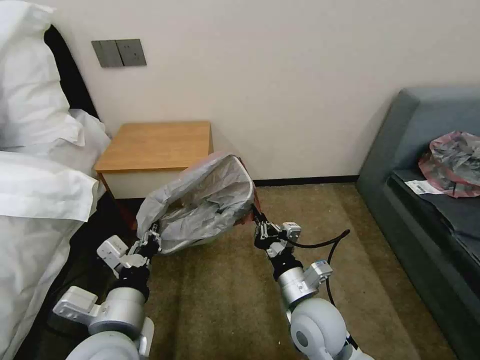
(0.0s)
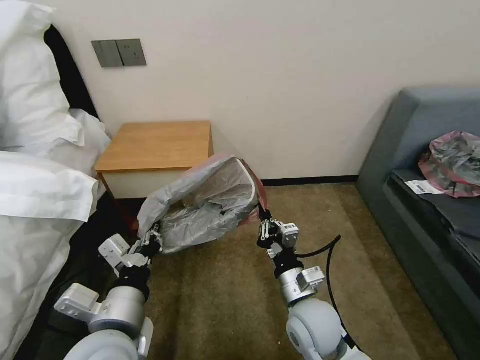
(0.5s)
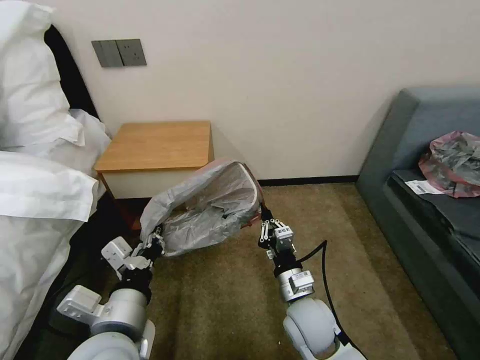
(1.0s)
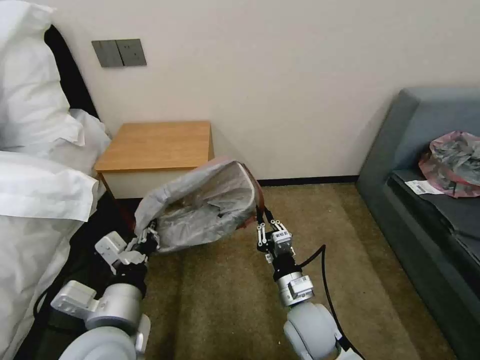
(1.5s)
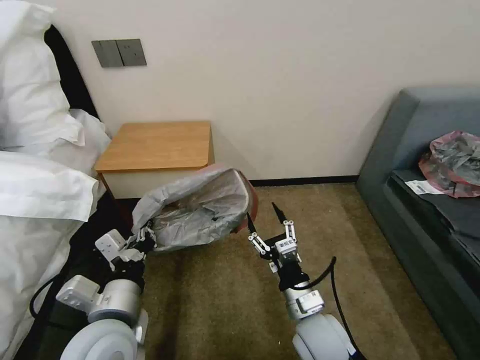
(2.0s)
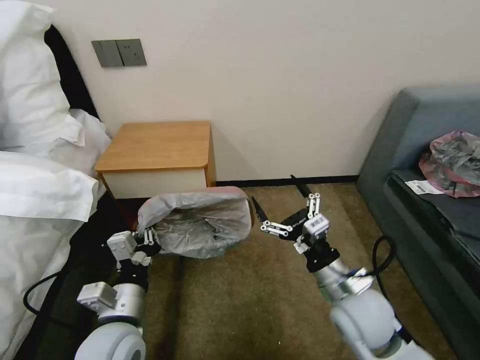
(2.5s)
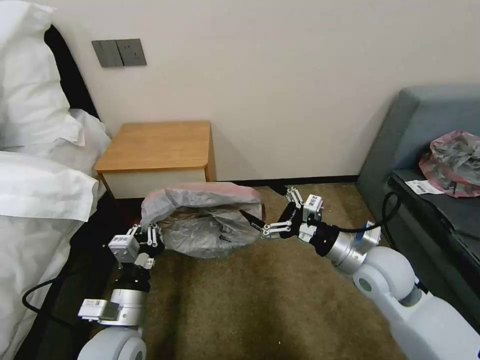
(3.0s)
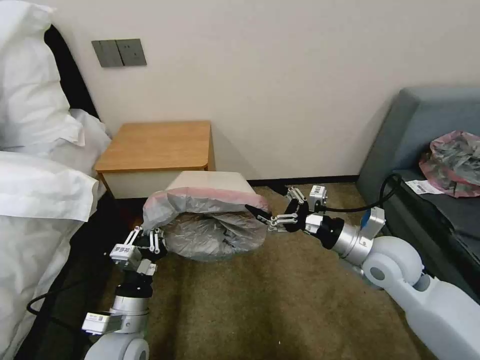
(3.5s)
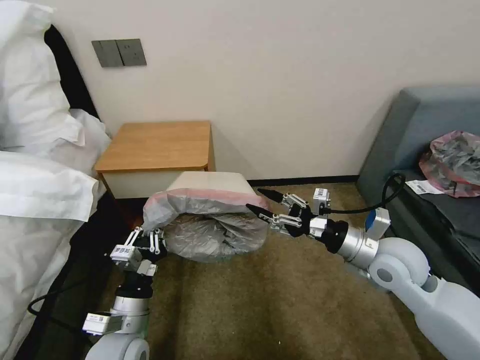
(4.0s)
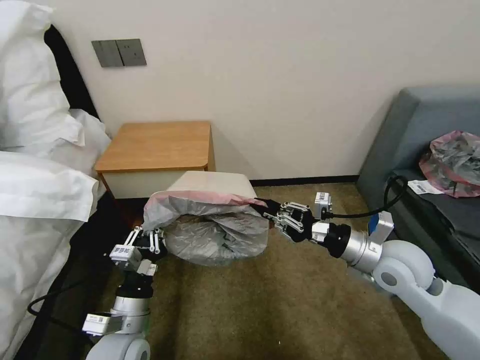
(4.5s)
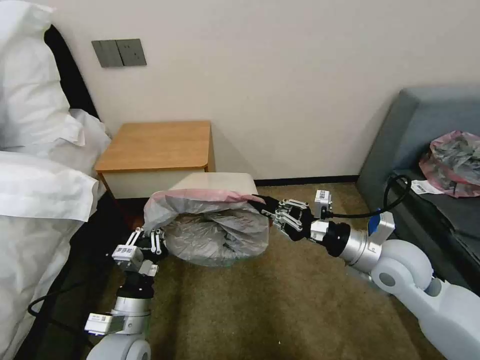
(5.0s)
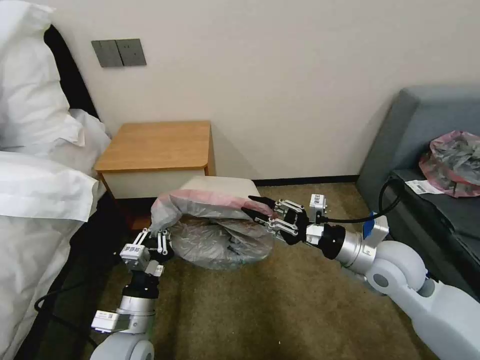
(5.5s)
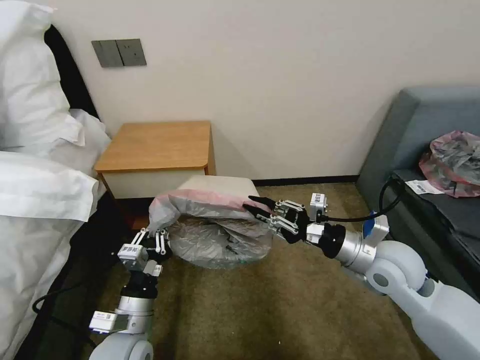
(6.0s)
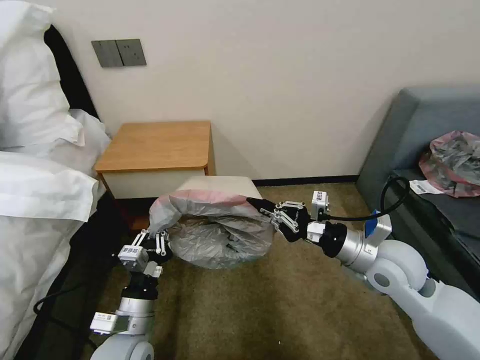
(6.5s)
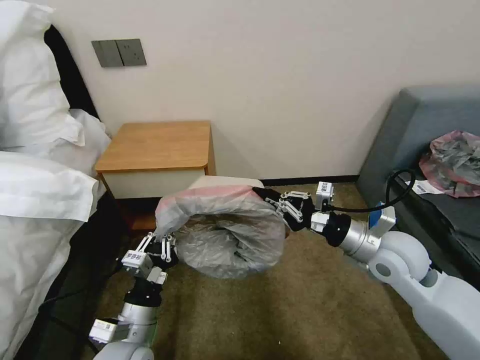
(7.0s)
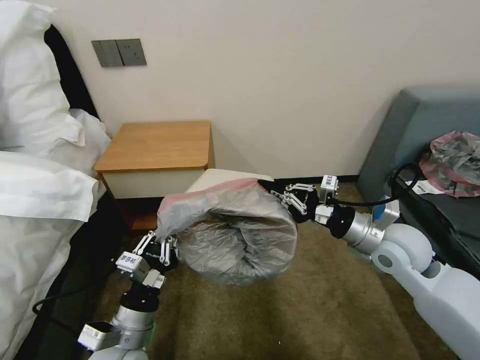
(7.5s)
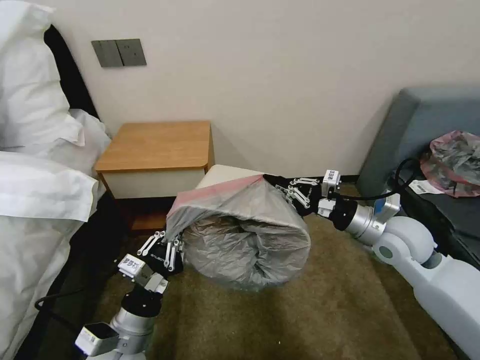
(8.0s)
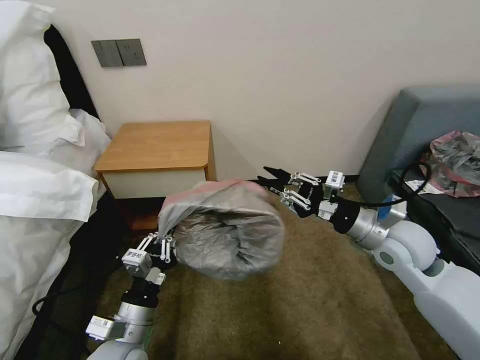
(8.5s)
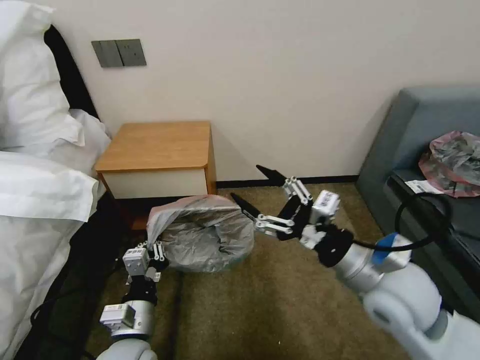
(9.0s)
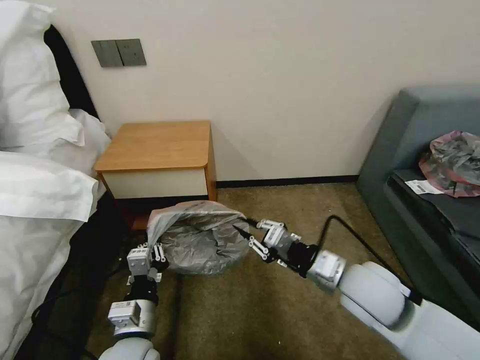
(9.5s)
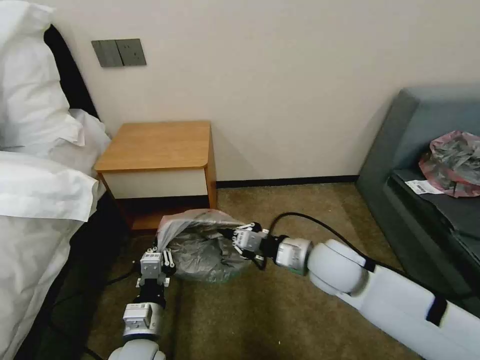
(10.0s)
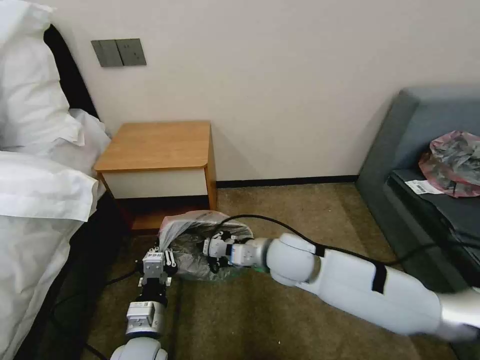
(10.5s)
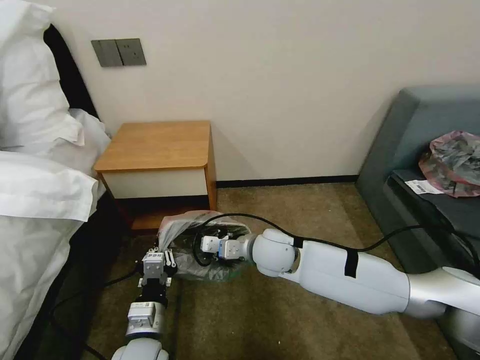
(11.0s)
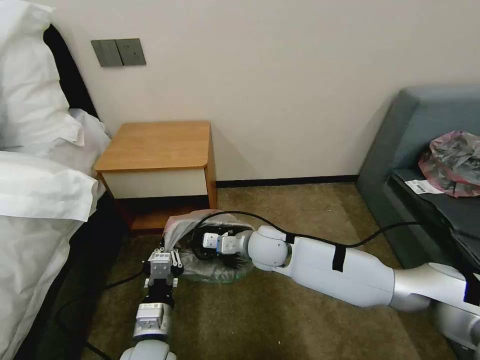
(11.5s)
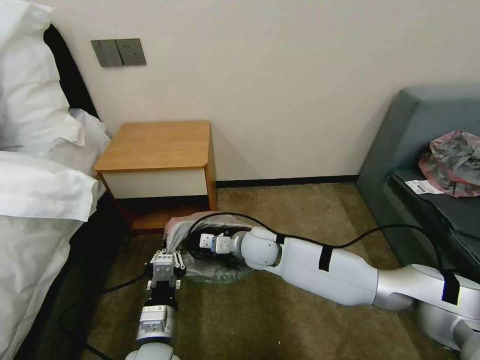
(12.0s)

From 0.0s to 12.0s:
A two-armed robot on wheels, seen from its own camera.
Task of the whole recording: Pick up the garbage bag from the table and place it over the trash can.
From 0.0s to 2.0s: The right gripper opens its fingers.
From 2.0s to 4.0s: The left gripper shifts roughly 10 cm downward, while the right gripper moves to the right, upward and forward, roughly 20 cm.
From 4.0s to 6.0s: The right gripper closes.
From 6.0s to 8.0s: The right gripper shifts by about 5 cm.
From 8.0s to 10.0s: The right gripper moves to the left, about 15 cm, and opens, then closes again.
From 10.0s to 12.0s: The right gripper shifts approximately 15 cm to the left, forward and downward.

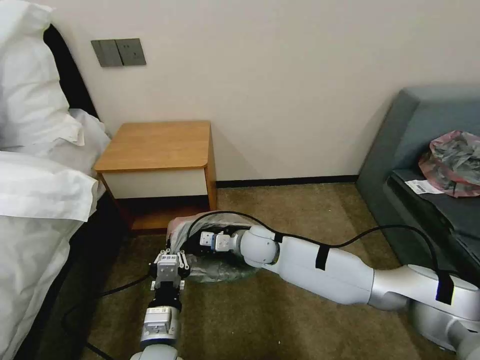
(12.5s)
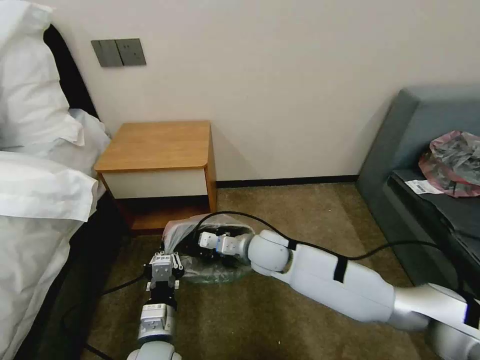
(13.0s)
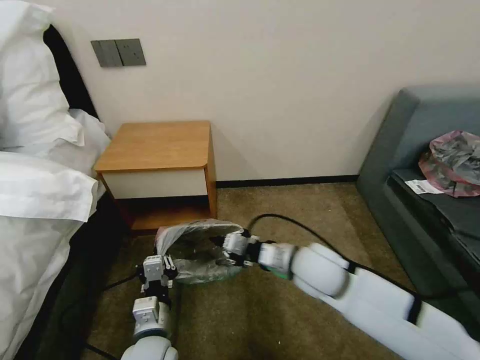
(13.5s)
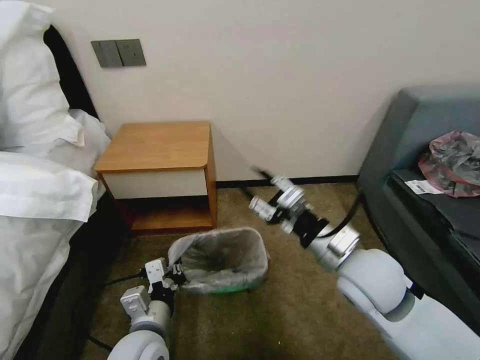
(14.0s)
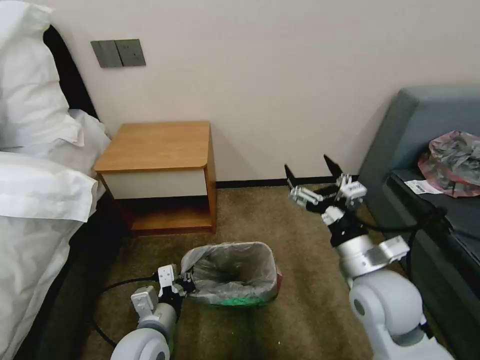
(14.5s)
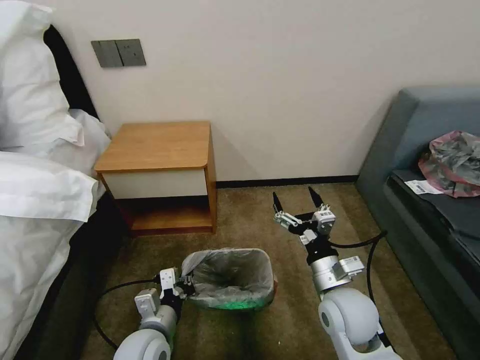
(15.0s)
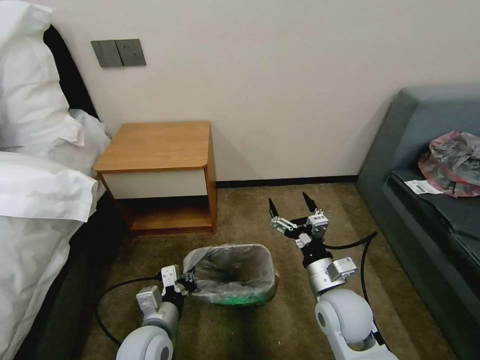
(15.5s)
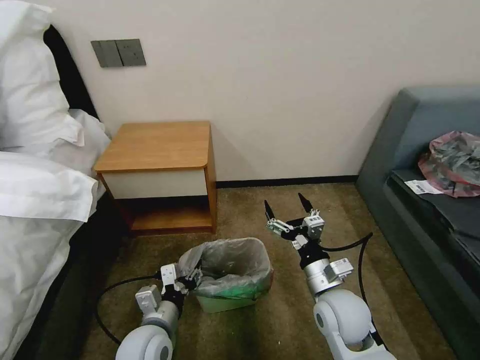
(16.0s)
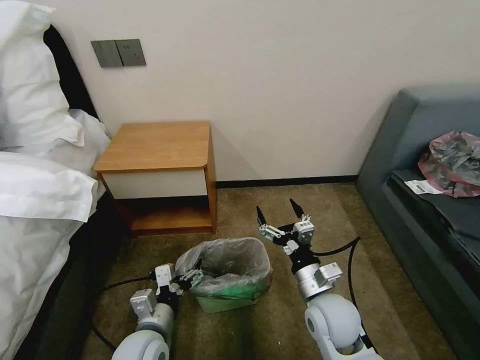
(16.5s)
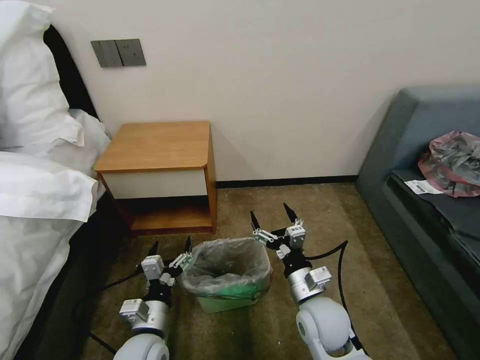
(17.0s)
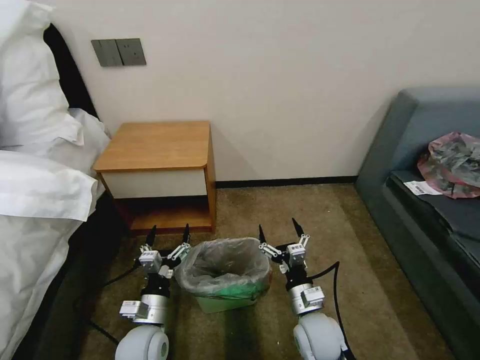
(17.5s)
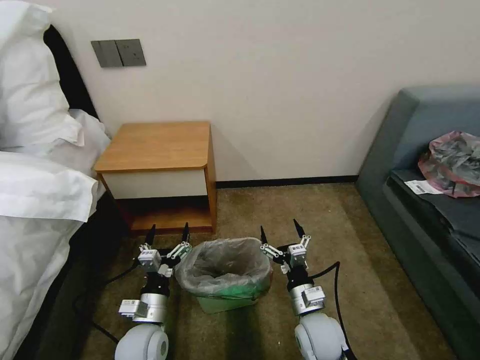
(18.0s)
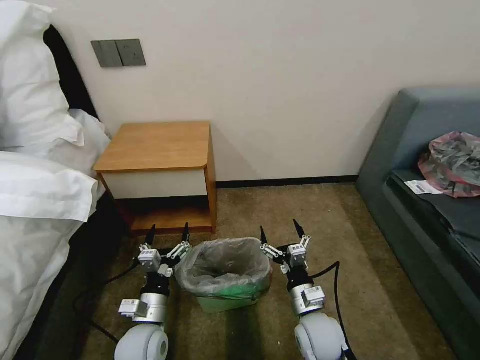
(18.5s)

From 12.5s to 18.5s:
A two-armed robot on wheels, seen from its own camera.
Task of the whole recording: Pick up the garbage bag from the table and place it over the trash can.
From 12.5s to 14.5s: The right gripper heads to the right, backward and upward, covering some 25 cm, and opens its fingers.
From 14.5s to 16.5s: The right gripper goes approximately 10 cm downward and to the left. The left gripper opens.
From 16.5s to 18.5s: The right gripper goes approximately 10 cm downward, while the left gripper ends up some 5 cm from where it was.

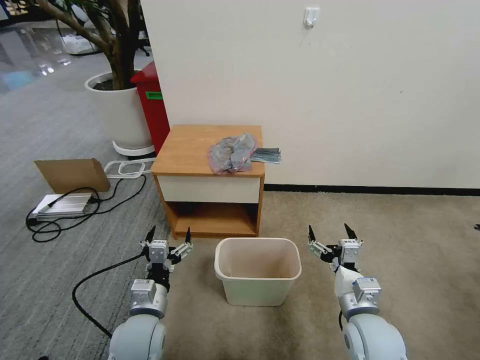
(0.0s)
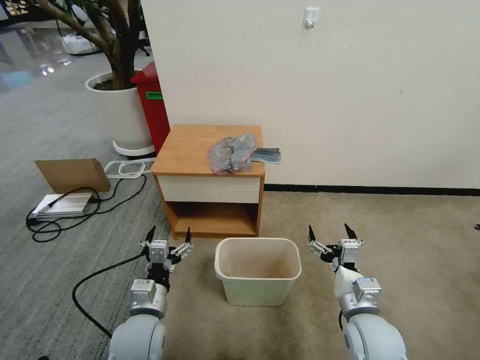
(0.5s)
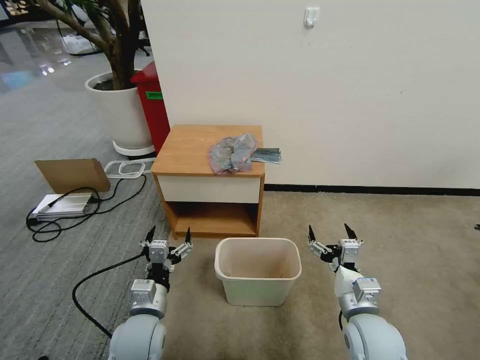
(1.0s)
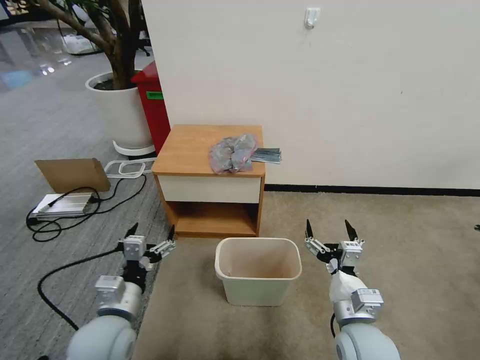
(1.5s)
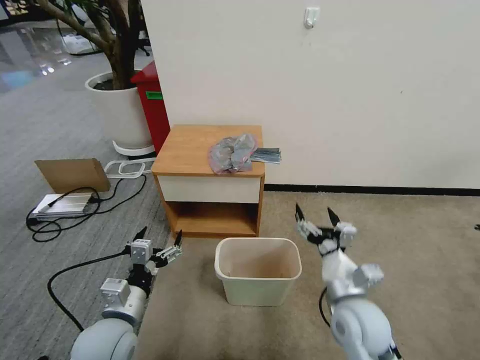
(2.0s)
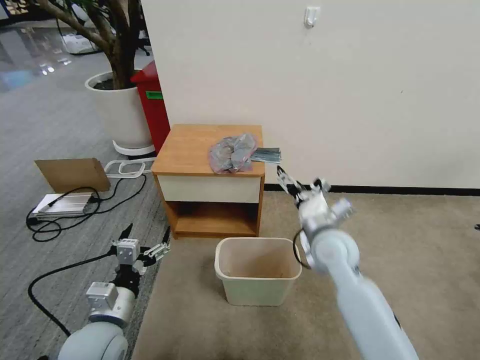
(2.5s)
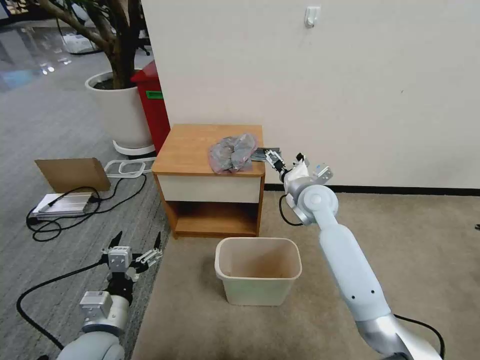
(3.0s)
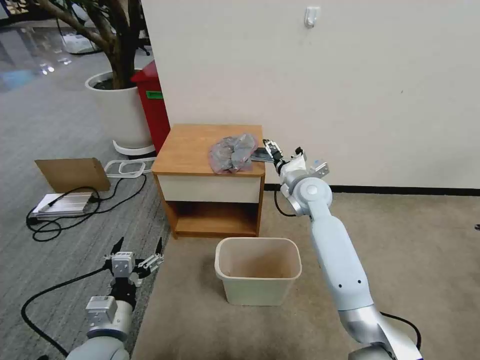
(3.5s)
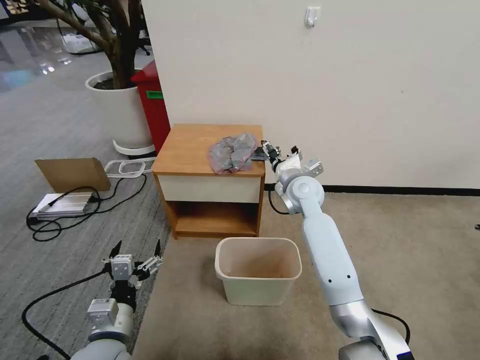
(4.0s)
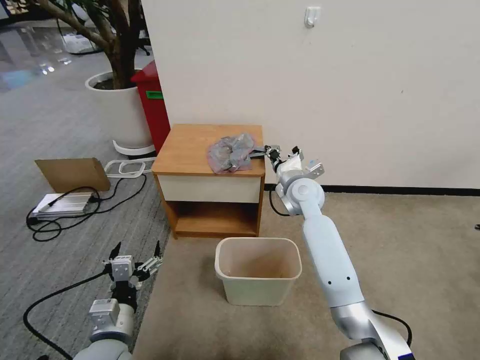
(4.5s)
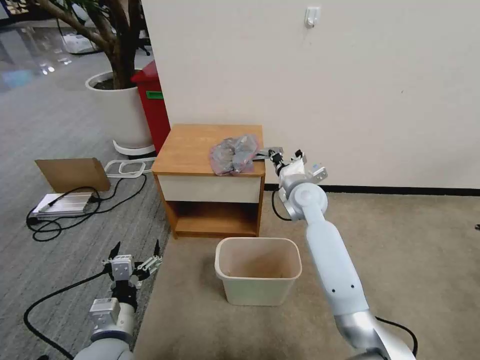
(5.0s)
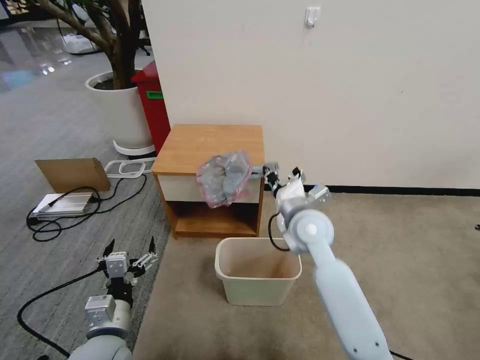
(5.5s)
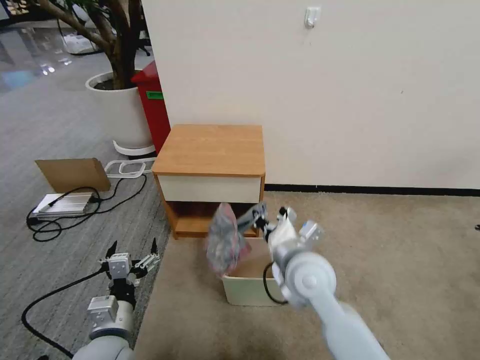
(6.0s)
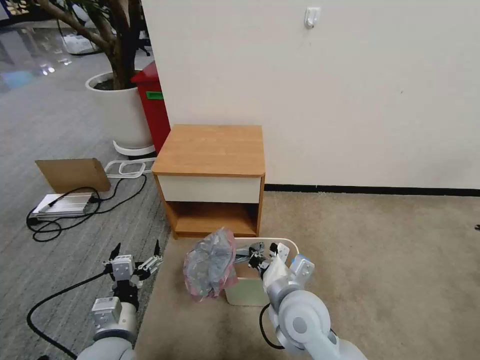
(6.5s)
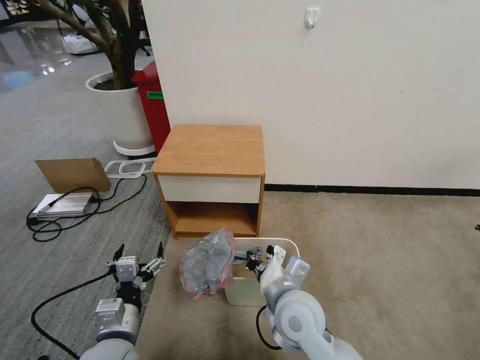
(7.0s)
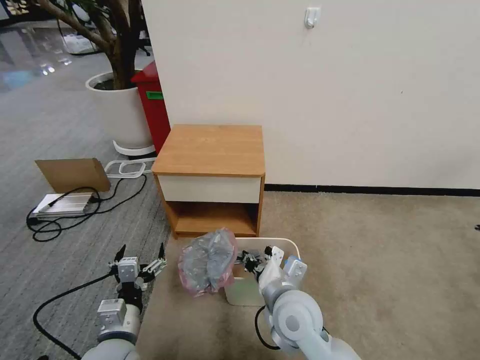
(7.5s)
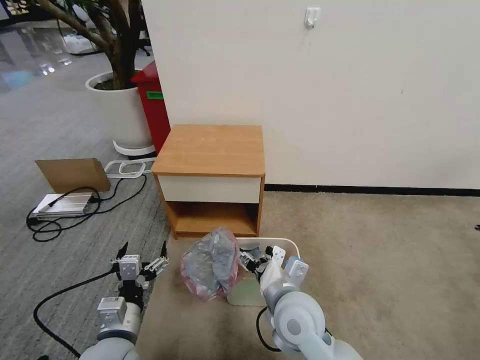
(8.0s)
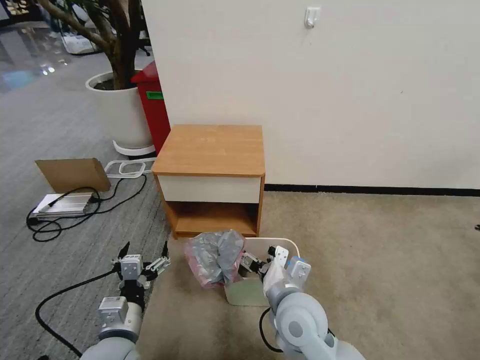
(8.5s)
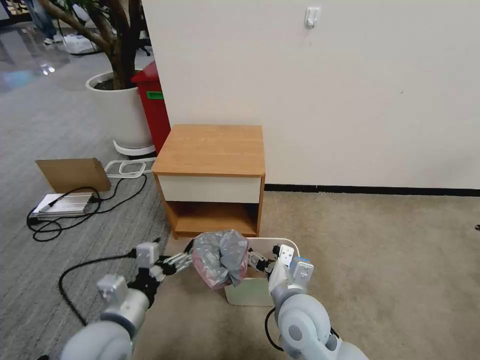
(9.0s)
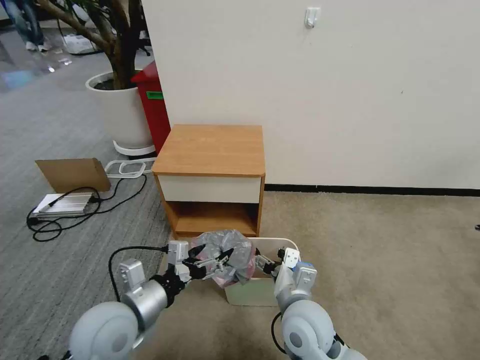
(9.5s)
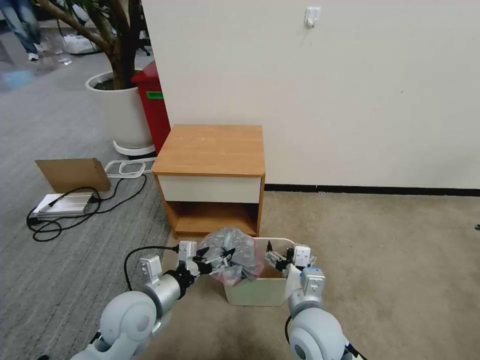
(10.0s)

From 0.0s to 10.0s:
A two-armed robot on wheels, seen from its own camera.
Task of the whole recording: Pick up the garbage bag from the table and place it over the trash can.
From 2.0s to 4.0s: The right gripper heads forward, covering roughly 30 cm.
From 4.0s to 6.0s: The right gripper moves backward, some 20 cm, and closes.
From 6.0s to 8.0s: The right gripper goes some 5 cm backward, and opens.
From 8.0s to 10.0s: The left gripper travels forward by some 5 cm.
